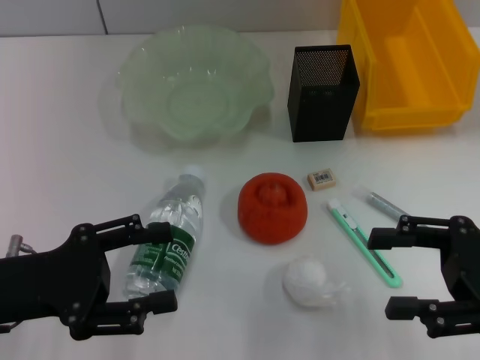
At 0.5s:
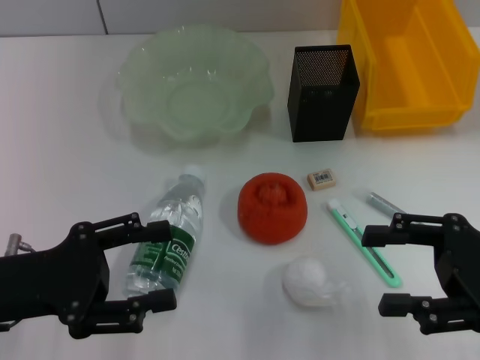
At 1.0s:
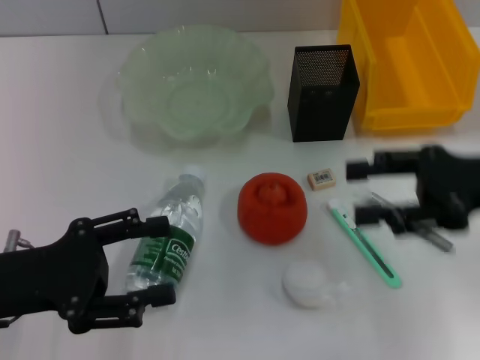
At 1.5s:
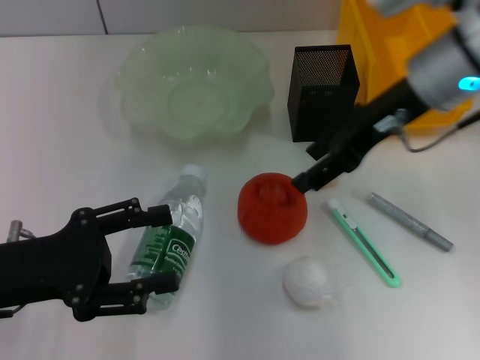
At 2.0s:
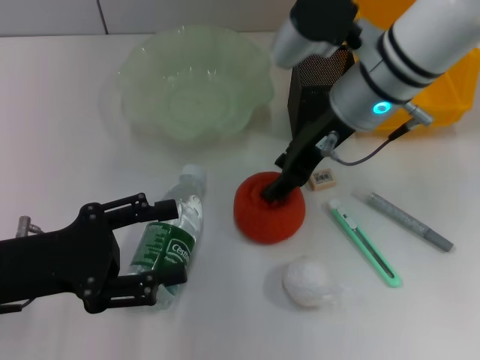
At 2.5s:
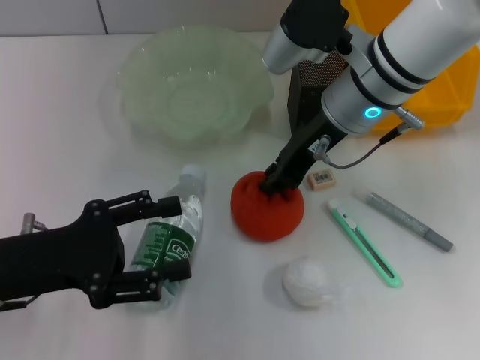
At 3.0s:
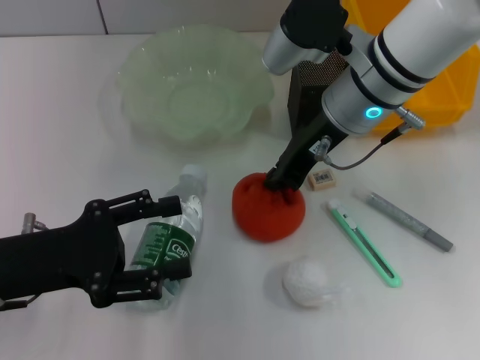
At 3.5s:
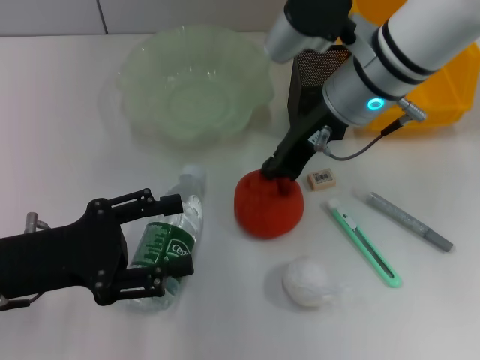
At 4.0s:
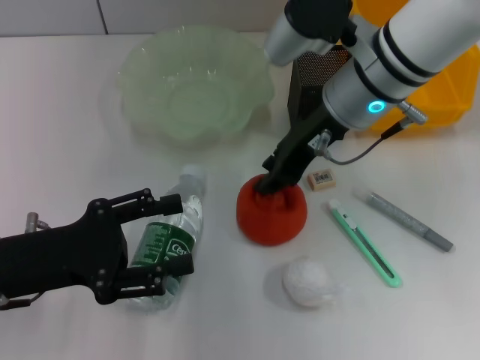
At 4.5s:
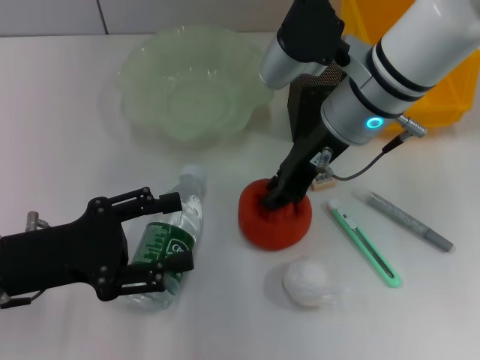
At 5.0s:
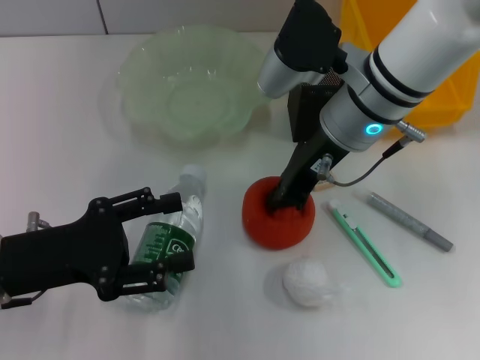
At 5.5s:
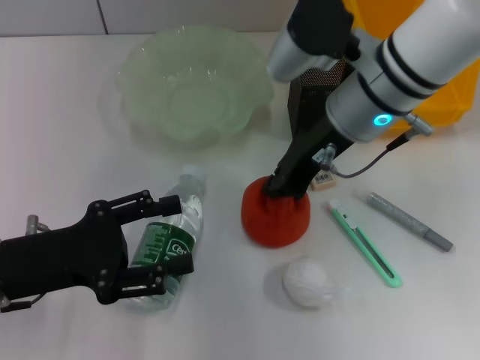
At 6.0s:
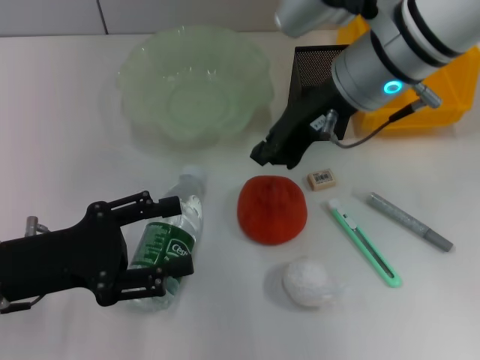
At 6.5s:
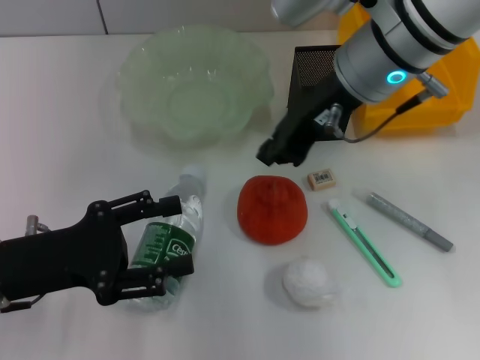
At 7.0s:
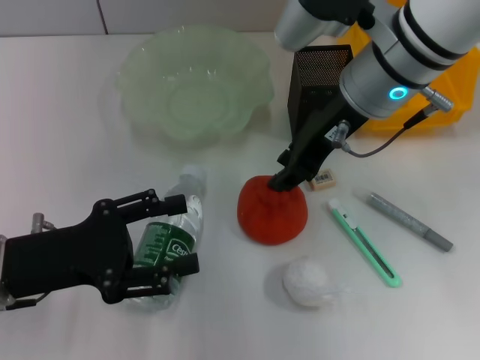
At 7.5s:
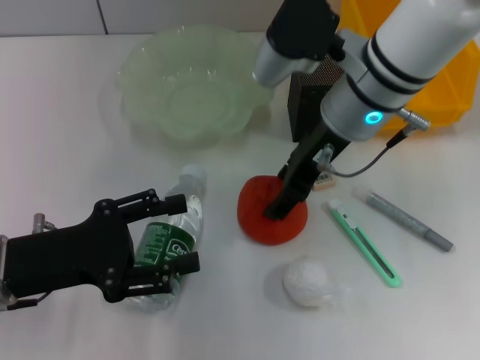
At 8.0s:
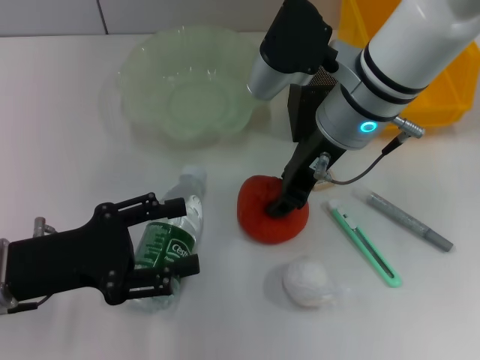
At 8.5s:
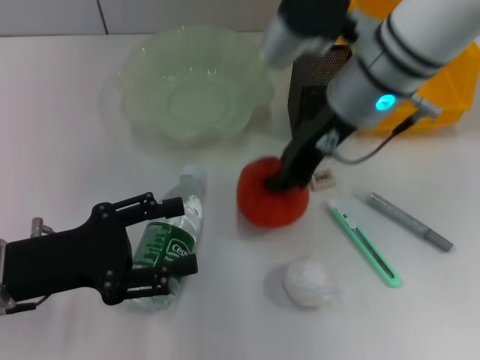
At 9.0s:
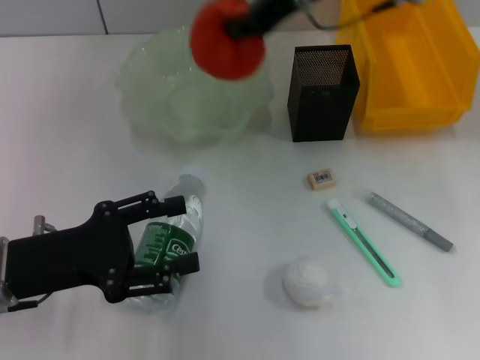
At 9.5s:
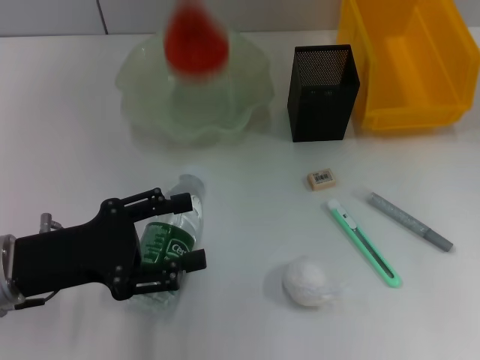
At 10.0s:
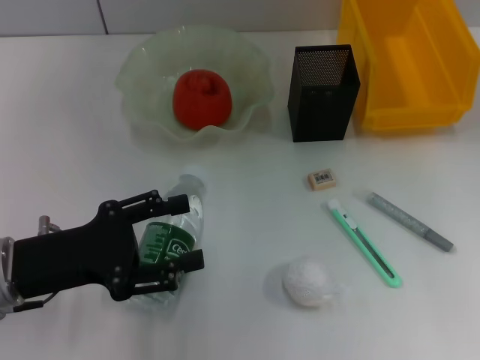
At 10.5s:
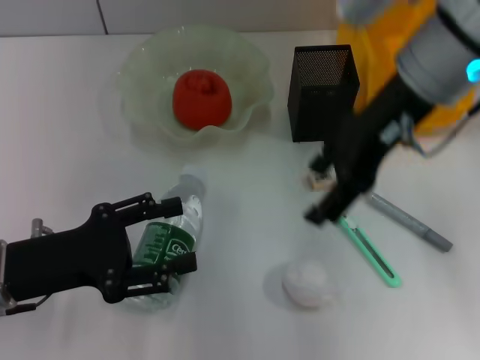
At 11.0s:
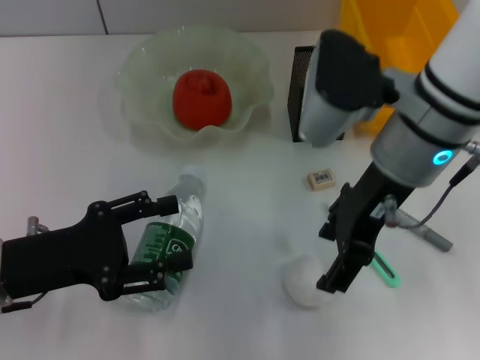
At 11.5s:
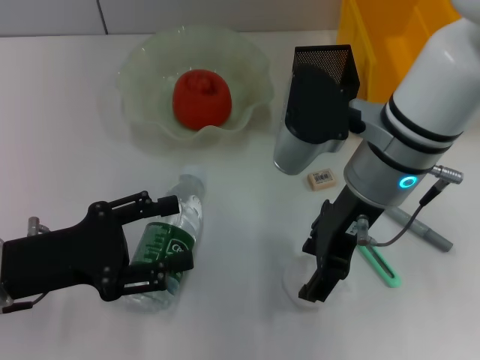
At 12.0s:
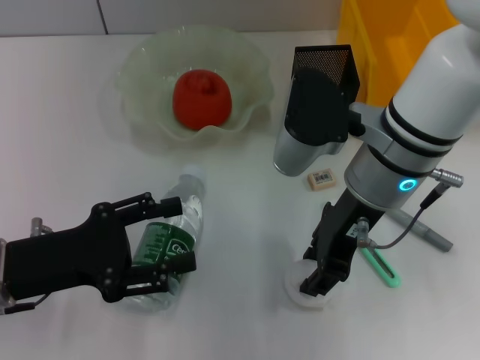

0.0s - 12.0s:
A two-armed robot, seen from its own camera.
Step, 0.0s - 8.0s: Grab the orange with the right hand.
Step, 8.5s - 9.5s: Place the orange into the fruit bowl with the right hand.
Step, 10.0s - 11.5s: Grab the paper ball with the right hand.
0.0s - 2.0s: The right gripper travels to the left and forward by roughly 25 cm.
2.0s - 4.0s: The right gripper closes up.
4.0s - 6.0s: There are only small adjustments of the grippers.
6.0s - 8.0s: The right gripper opens its fingers.
8.0s - 10.0s: The right gripper is displaced upward and forward by some 15 cm, and closes and opens again.
10.0s - 12.0s: The right gripper is displaced backward and downward by about 15 cm.

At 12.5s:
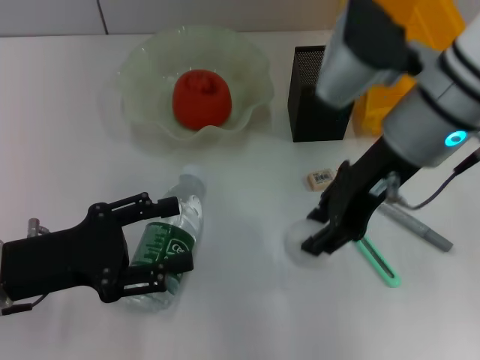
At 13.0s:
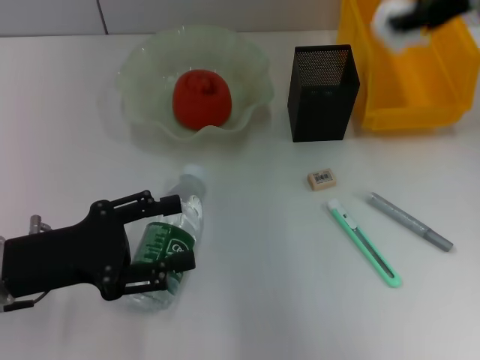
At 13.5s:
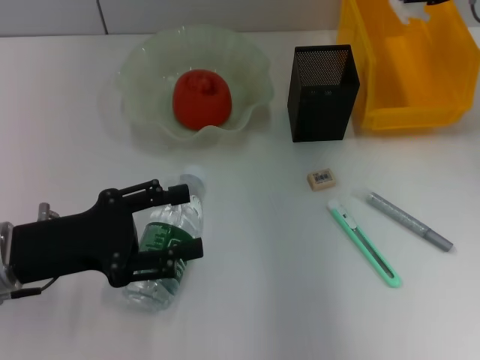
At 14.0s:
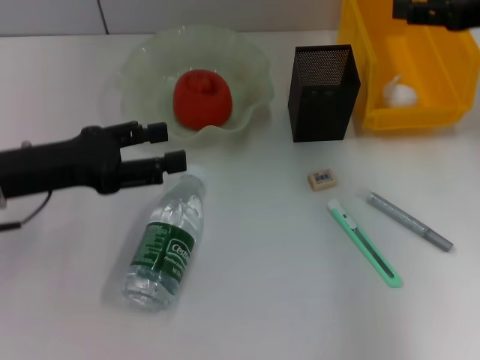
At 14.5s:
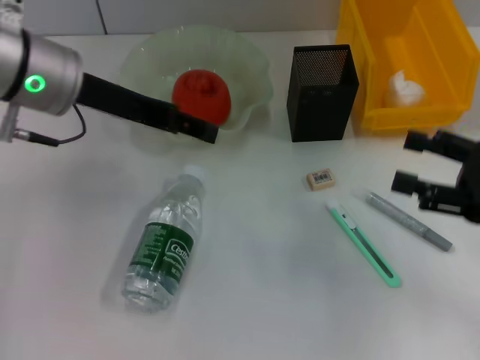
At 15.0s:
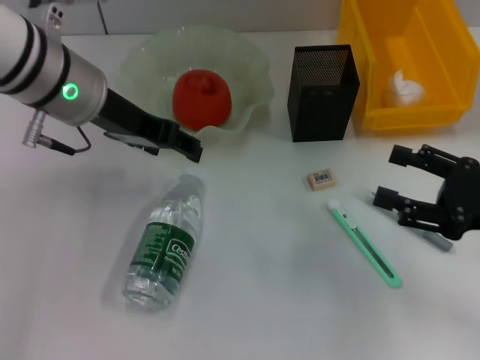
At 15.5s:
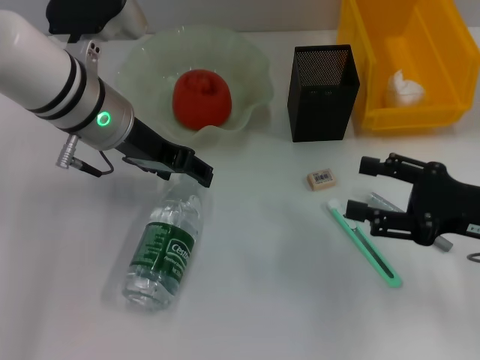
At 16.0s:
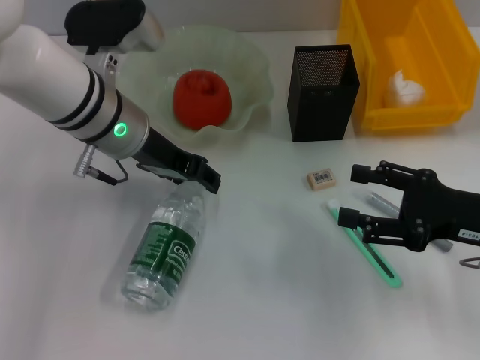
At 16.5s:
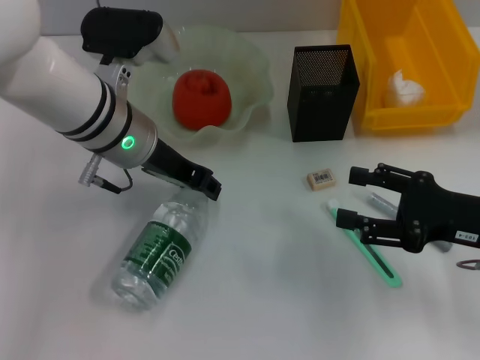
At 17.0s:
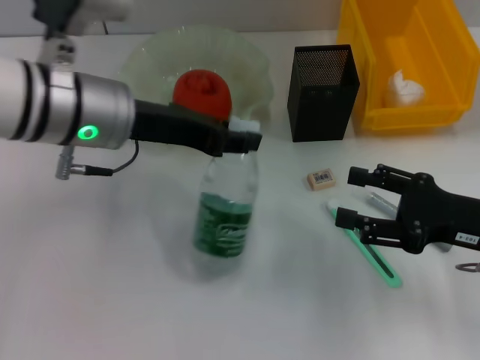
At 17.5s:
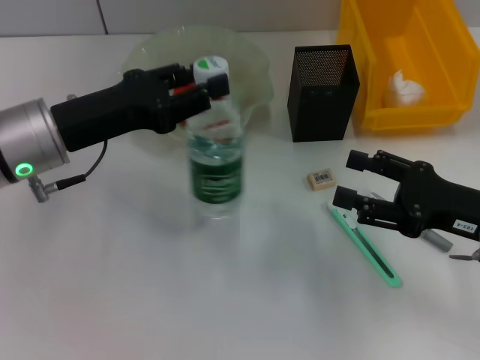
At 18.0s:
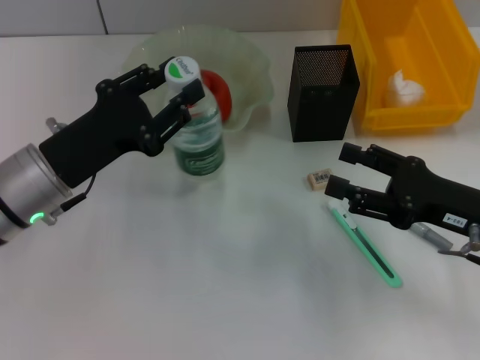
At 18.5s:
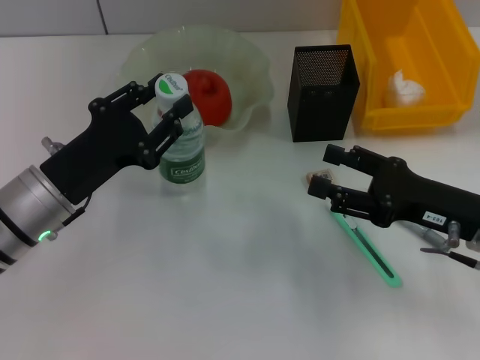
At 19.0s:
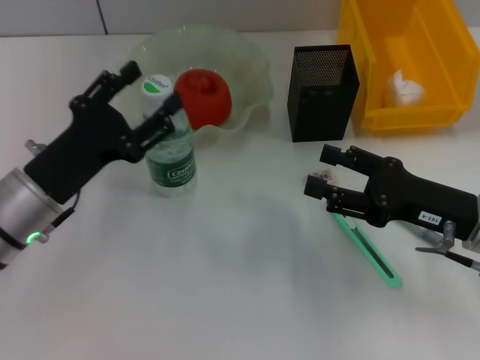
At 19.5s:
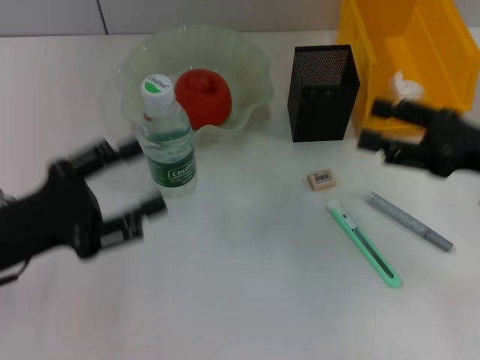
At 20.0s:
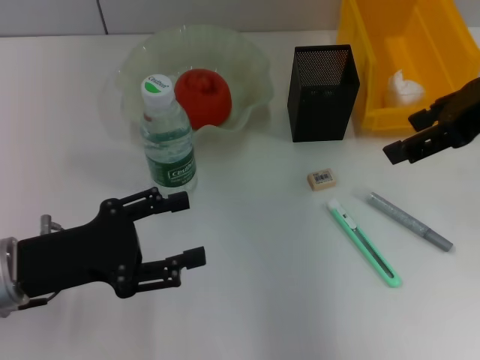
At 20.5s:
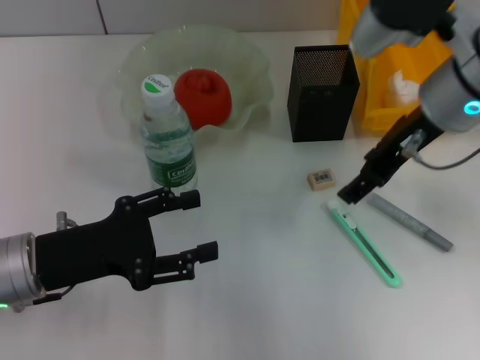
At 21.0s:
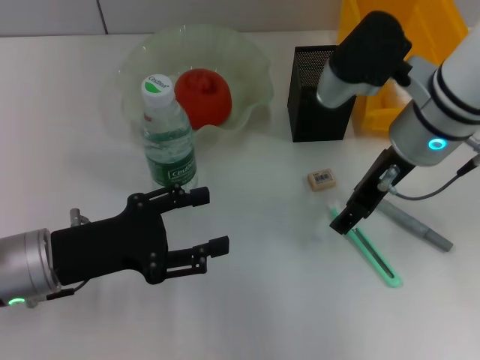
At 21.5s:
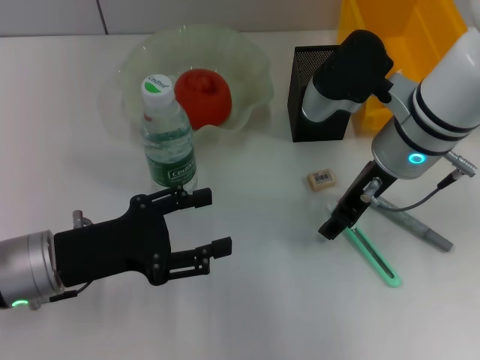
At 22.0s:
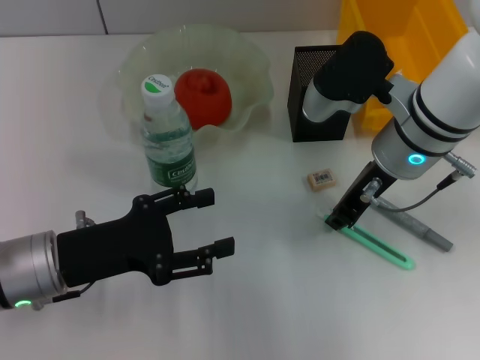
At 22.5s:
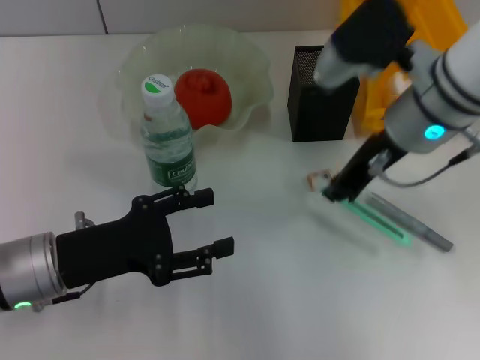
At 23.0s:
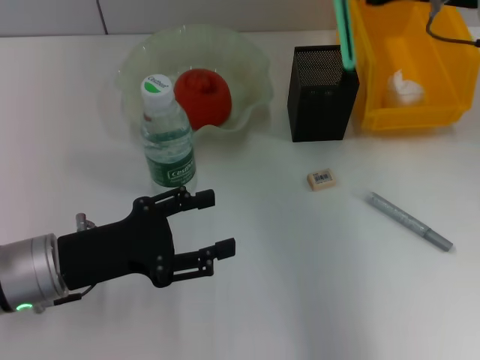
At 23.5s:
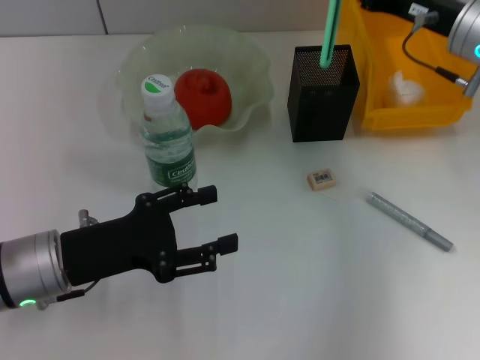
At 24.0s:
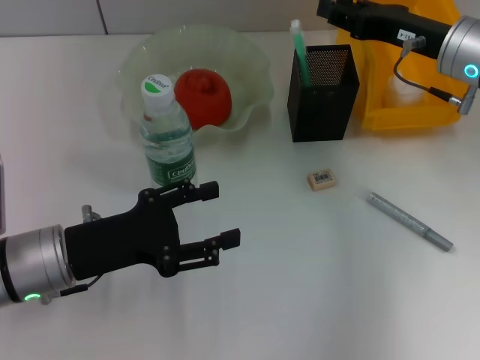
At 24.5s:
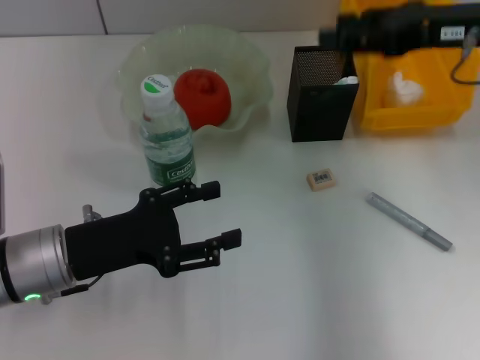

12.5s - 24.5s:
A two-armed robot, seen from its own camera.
Step, 12.5s - 13.5s: Place the paper ball into the trash can with the right hand.
Step, 14.0s - 16.0s: Grab the water bottle with the left hand.
Step, 16.5s - 18.5s: Place the water bottle on the table with the left hand.
Step, 19.0s - 22.0s: Grab the blue utility knife with the right hand.
Step, 22.5s - 24.0s: Place the blue utility knife into the pen holder with the right hand.
12.5s - 14.5s: The left gripper moves forward, upward and to the right, about 20 cm; the right gripper heads to the right, downward and backward, covering roughly 20 cm, and opens up.
14.5s - 16.5s: The right gripper ends up about 5 cm from where it was. Meanwhile the left gripper travels downward and to the right by about 10 cm, and closes.
16.5s - 18.5s: The left gripper shifts some 15 cm backward, to the left and downward.
18.5s - 20.5s: The right gripper shifts some 20 cm upward, forward and to the left, while the left gripper opens its fingers.
20.5s - 22.5s: The right gripper closes.
22.5s - 24.5s: The right gripper heads to the right, covering approximately 10 cm, and opens its fingers.

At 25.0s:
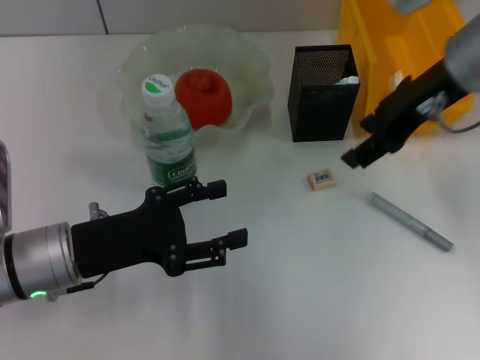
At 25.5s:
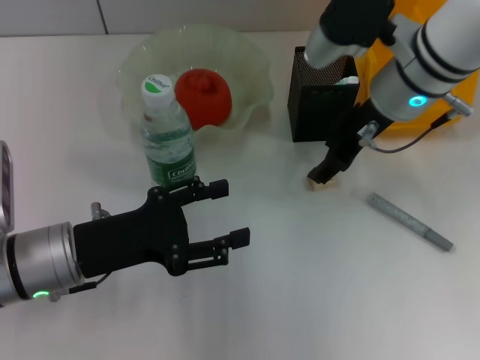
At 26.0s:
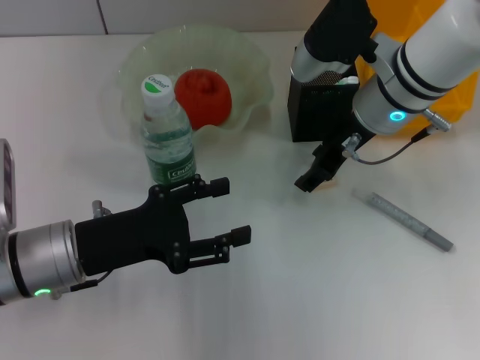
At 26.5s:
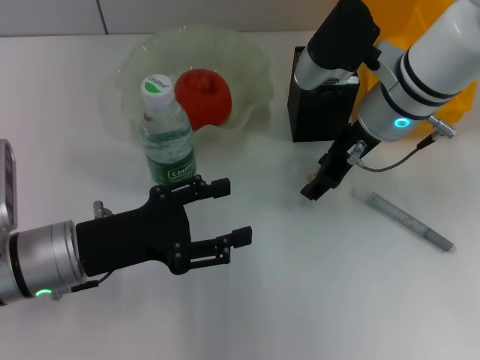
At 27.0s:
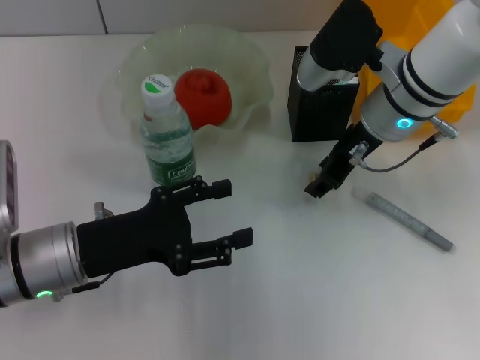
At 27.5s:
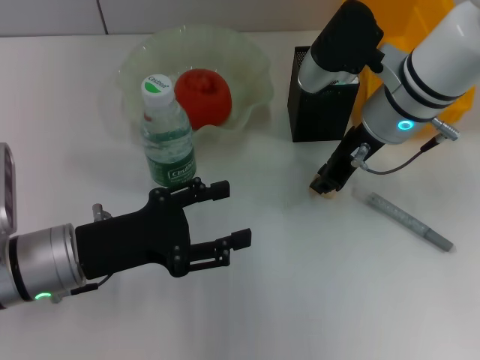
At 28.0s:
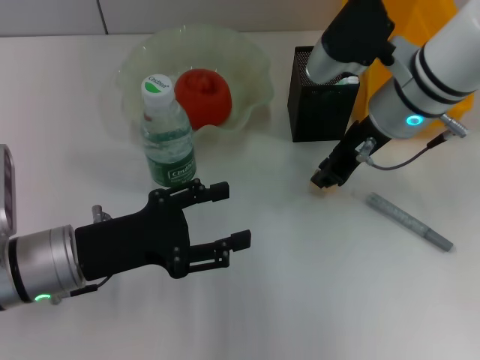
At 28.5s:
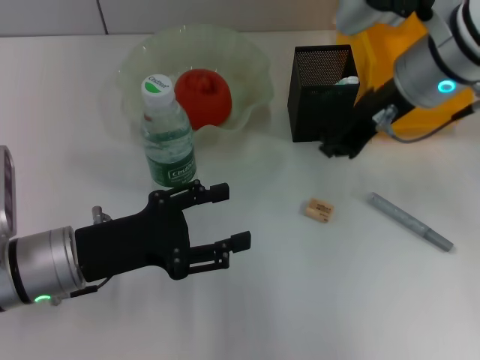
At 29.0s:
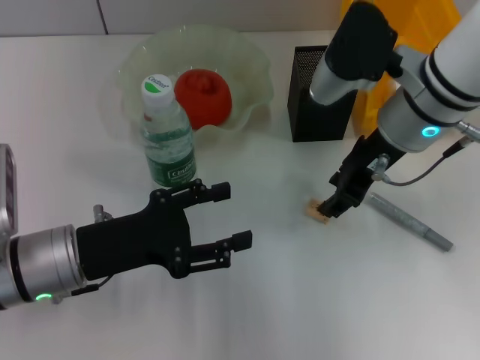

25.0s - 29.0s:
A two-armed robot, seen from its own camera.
25.0s - 27.0s: The right gripper moves downward, roughly 10 cm.
27.0s - 29.0s: The right gripper closes up.
